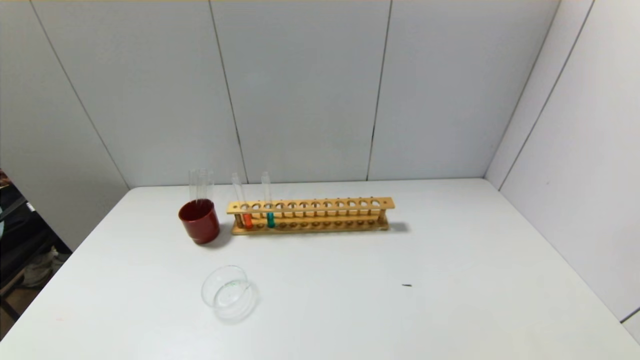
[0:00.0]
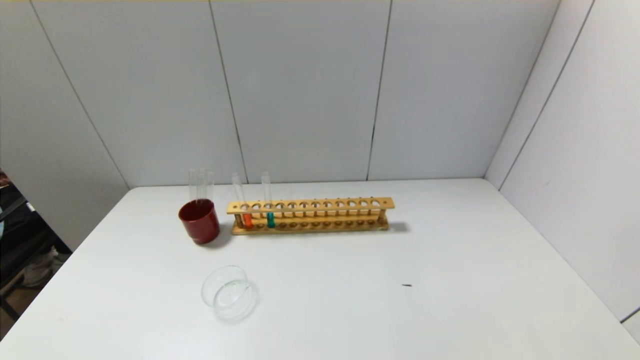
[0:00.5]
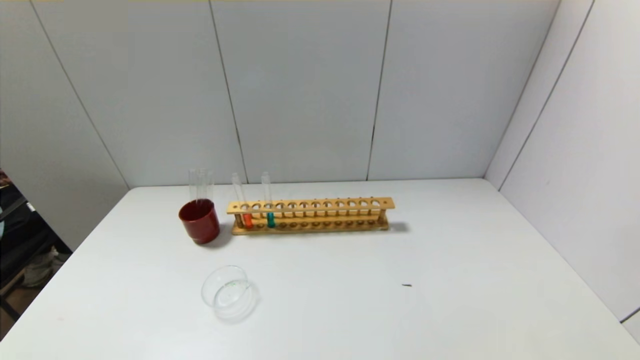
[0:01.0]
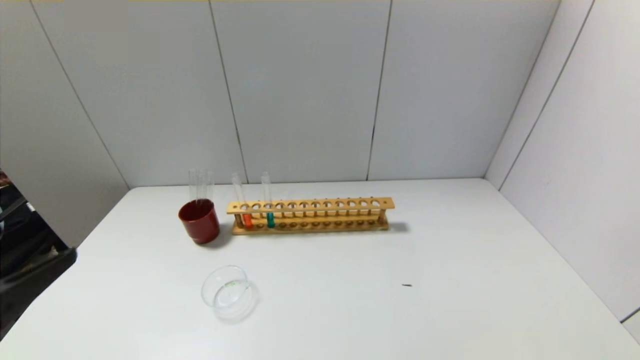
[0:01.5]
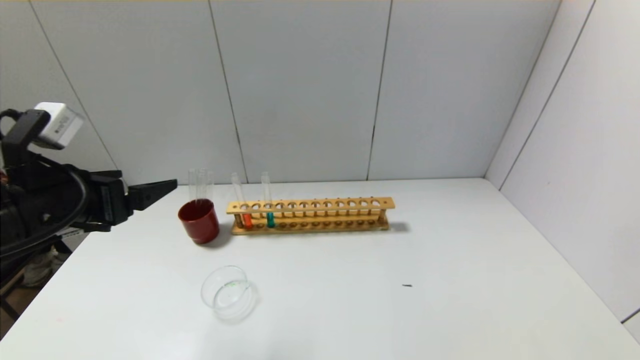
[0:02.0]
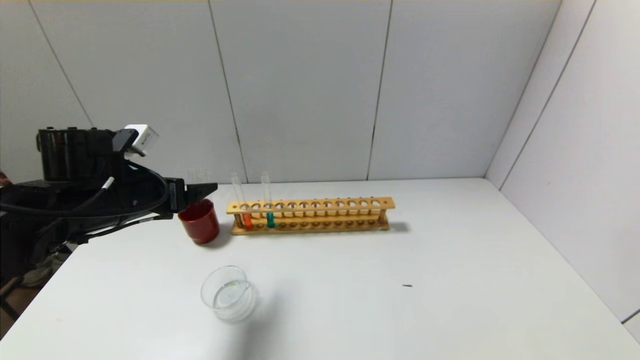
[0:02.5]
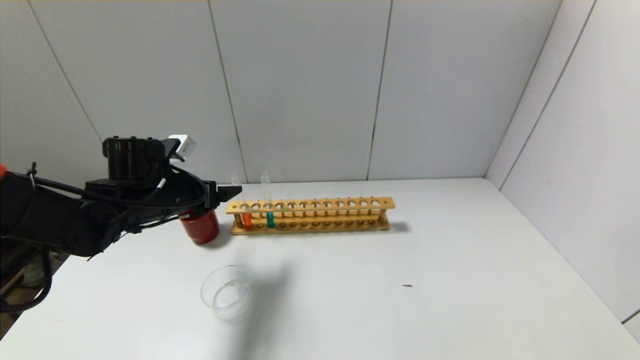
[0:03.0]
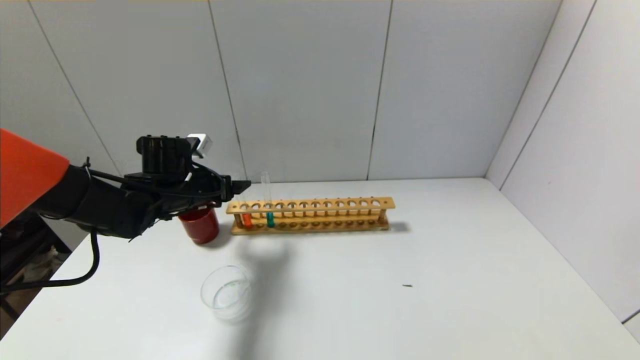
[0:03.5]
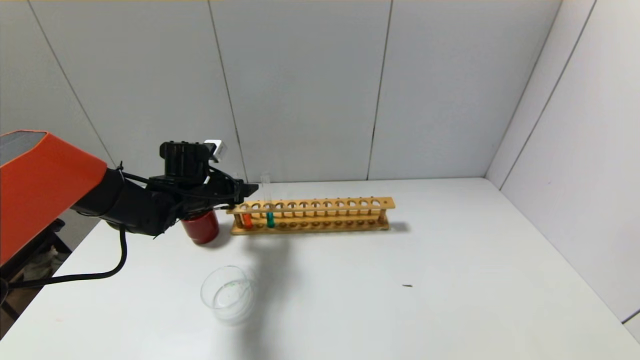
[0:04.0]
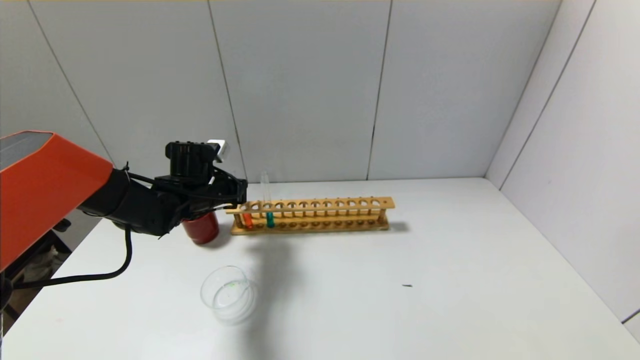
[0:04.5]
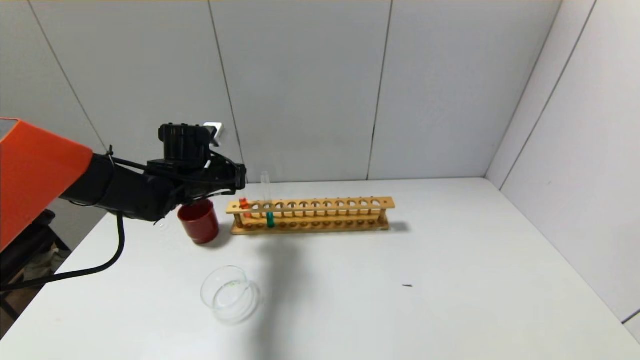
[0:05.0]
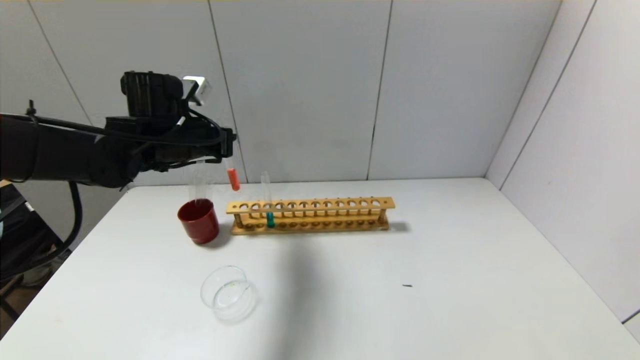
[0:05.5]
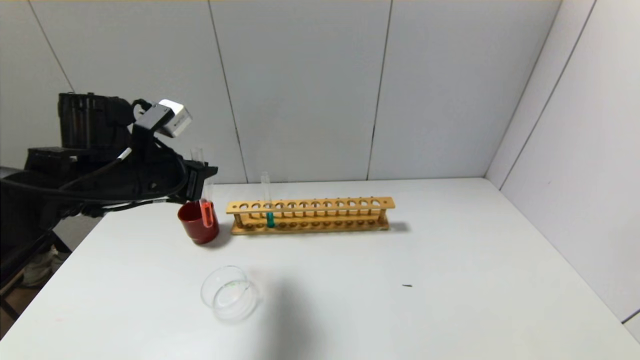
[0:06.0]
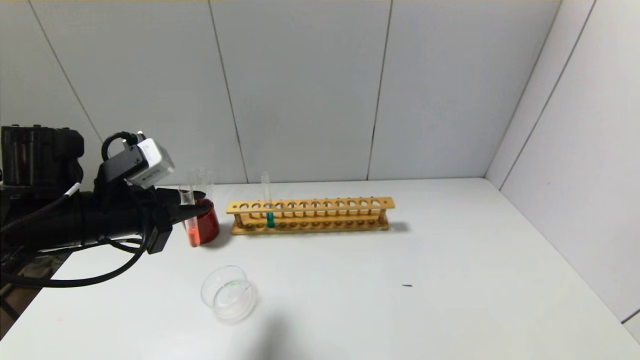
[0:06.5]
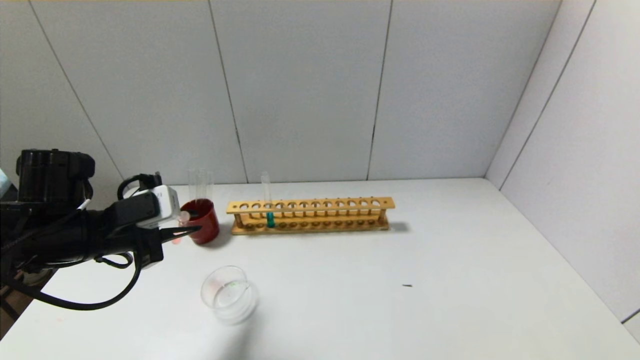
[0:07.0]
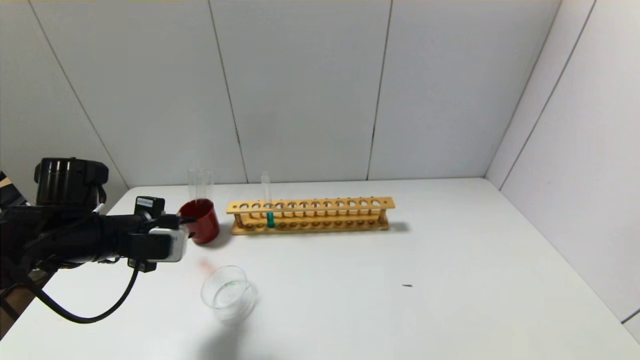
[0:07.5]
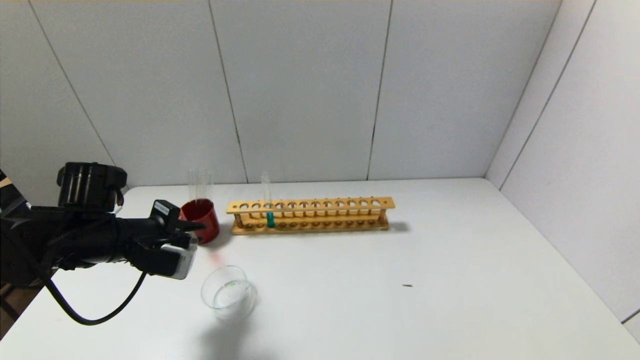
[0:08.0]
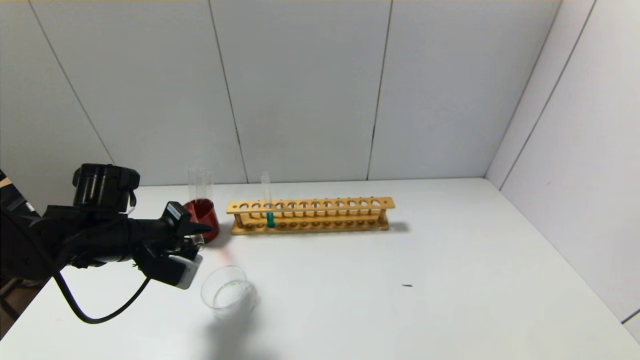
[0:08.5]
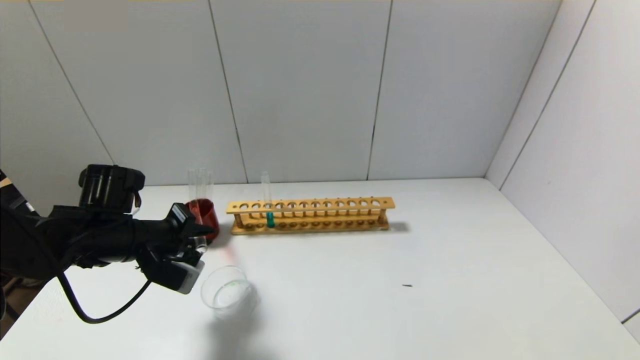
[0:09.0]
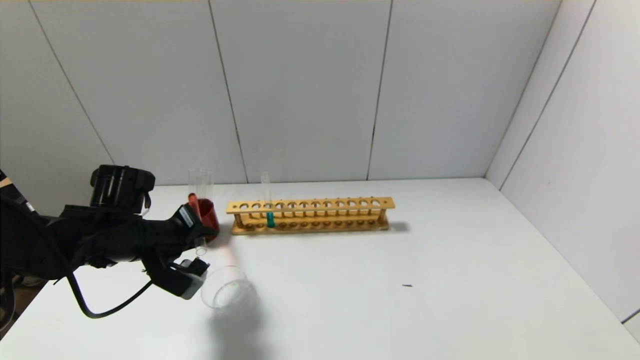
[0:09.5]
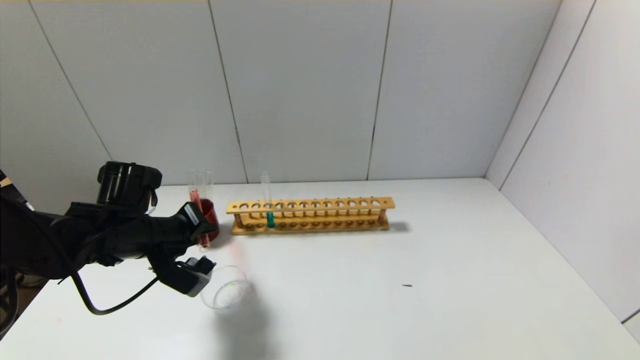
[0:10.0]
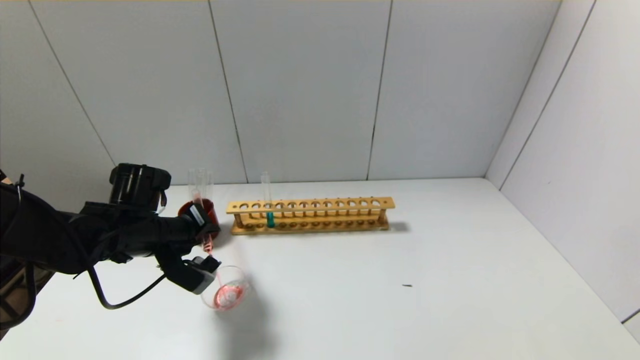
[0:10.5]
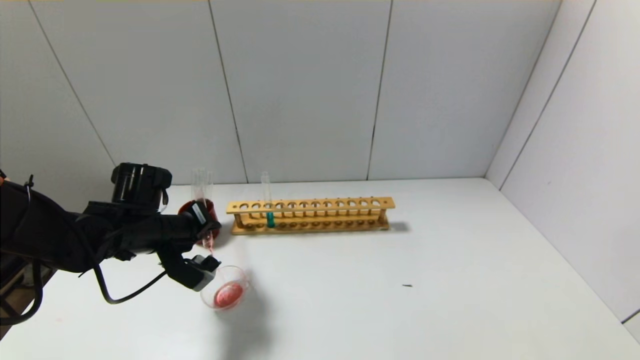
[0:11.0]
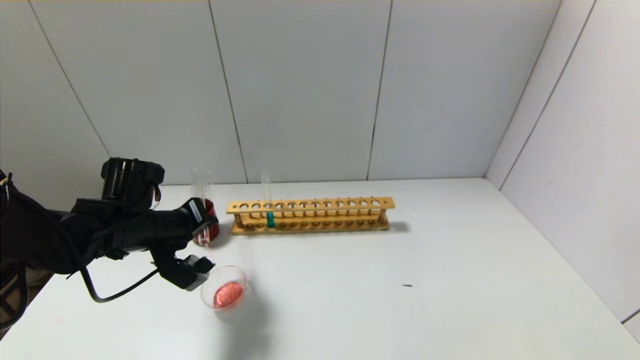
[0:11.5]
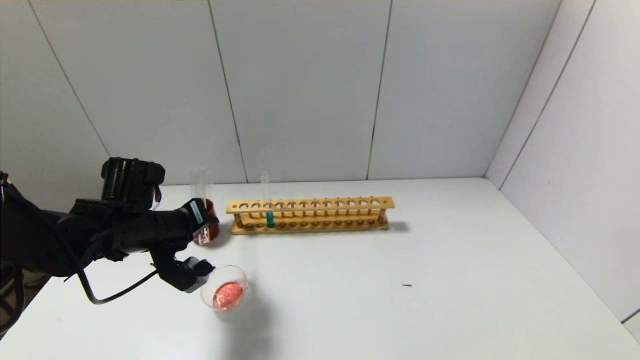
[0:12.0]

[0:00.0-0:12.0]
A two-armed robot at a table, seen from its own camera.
Step, 0:00.0 to 0:04.5: Grasp the red reagent with the left gripper.
0:00.0 to 0:02.0: The left gripper shifts approximately 30 cm forward and upward.
0:02.0 to 0:04.0: The left gripper goes approximately 25 cm forward and downward.
0:04.0 to 0:06.0: The left gripper moves backward and upward, roughly 15 cm, and closes up.
0:06.0 to 0:08.0: The left gripper heads downward, covering roughly 10 cm.
0:10.0 to 0:12.0: The grippers move only a little.

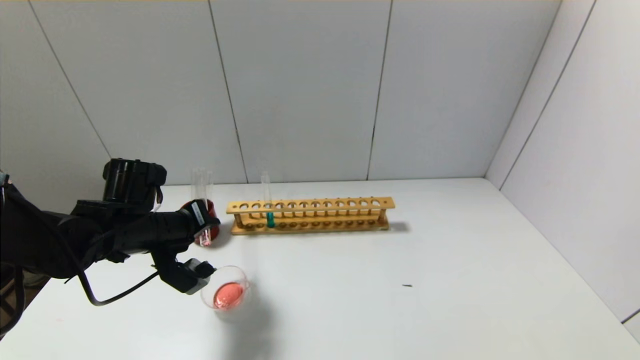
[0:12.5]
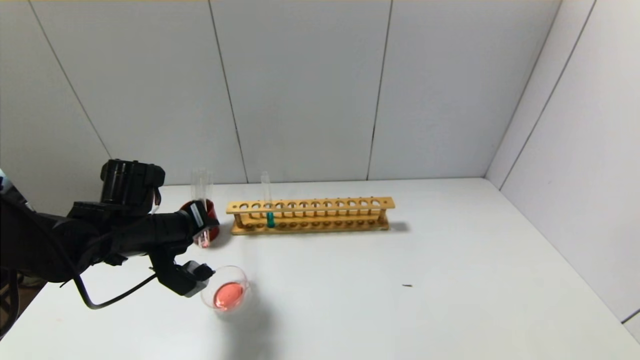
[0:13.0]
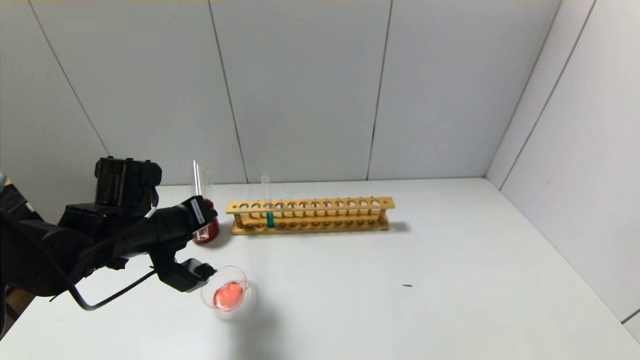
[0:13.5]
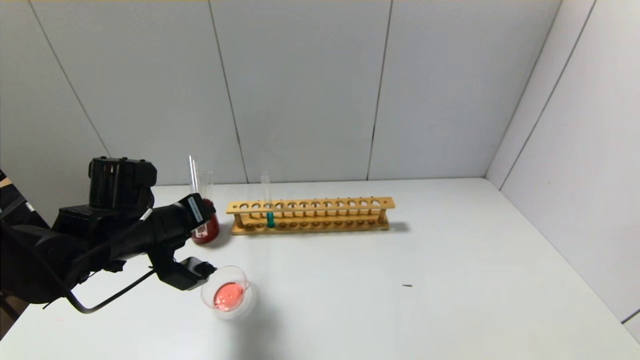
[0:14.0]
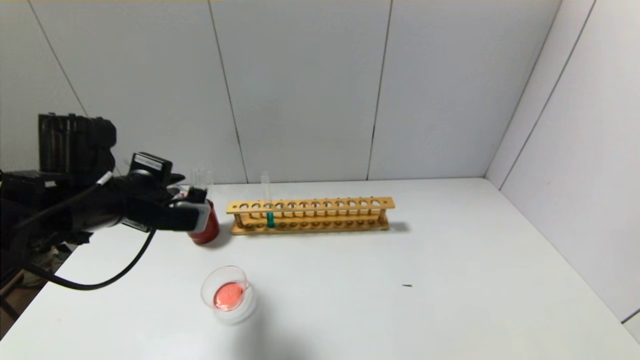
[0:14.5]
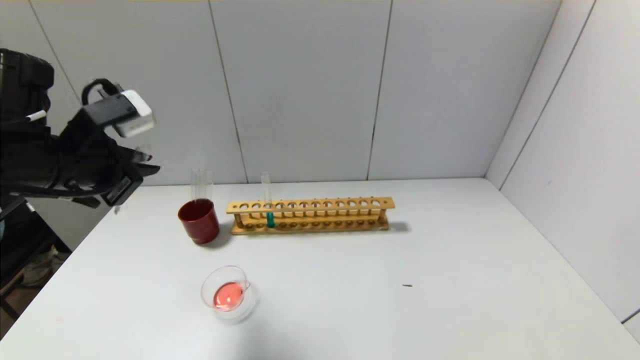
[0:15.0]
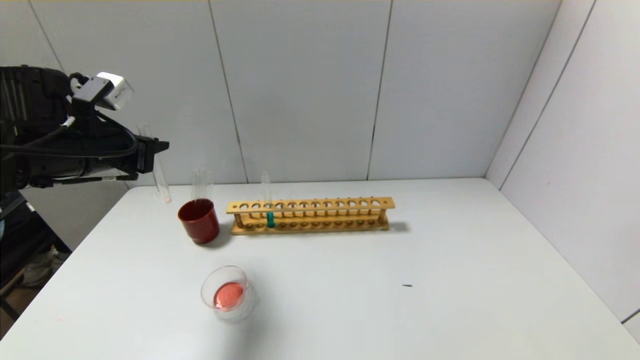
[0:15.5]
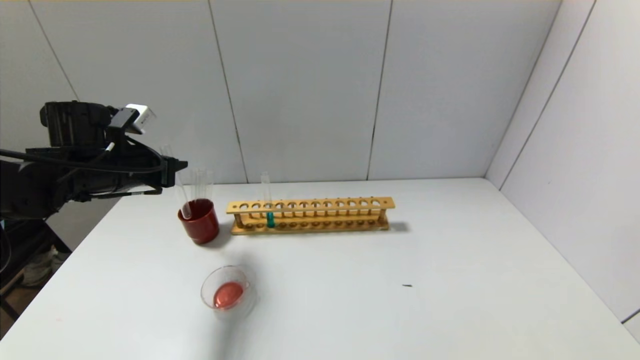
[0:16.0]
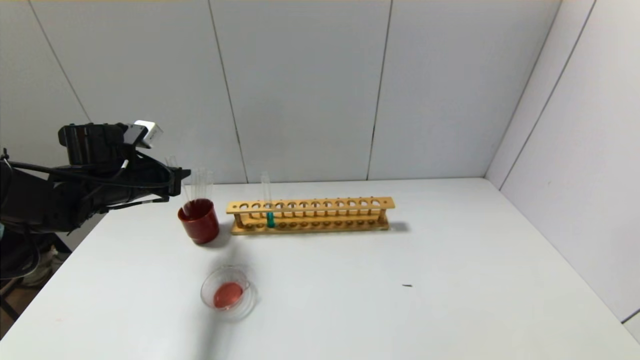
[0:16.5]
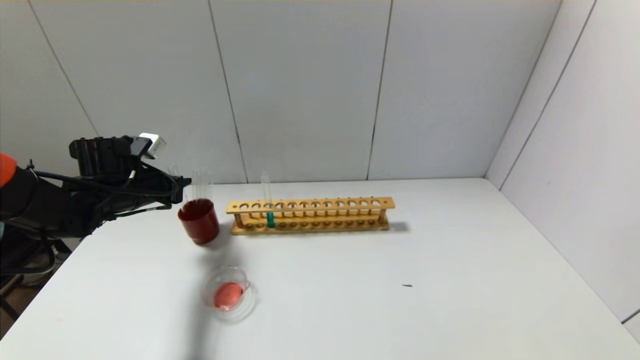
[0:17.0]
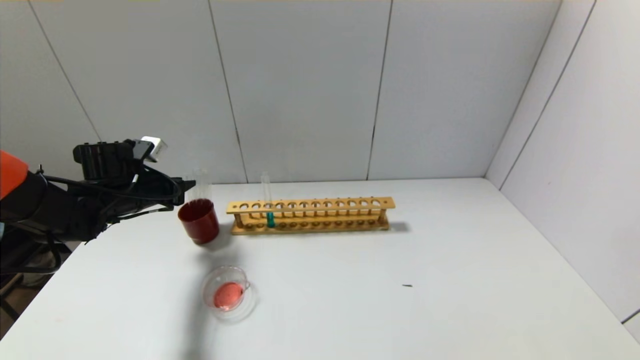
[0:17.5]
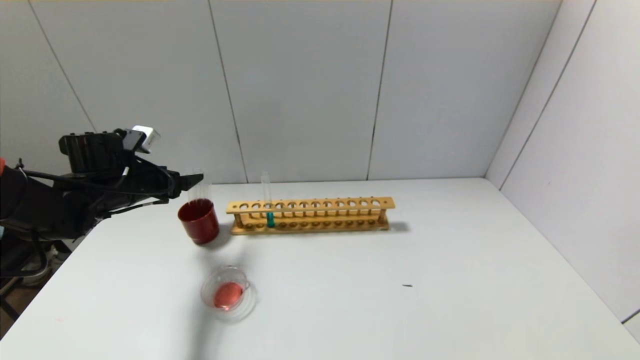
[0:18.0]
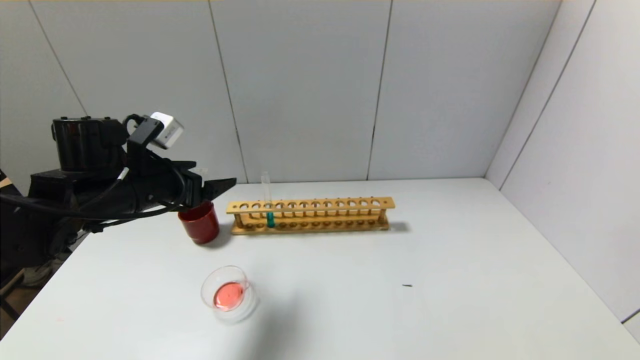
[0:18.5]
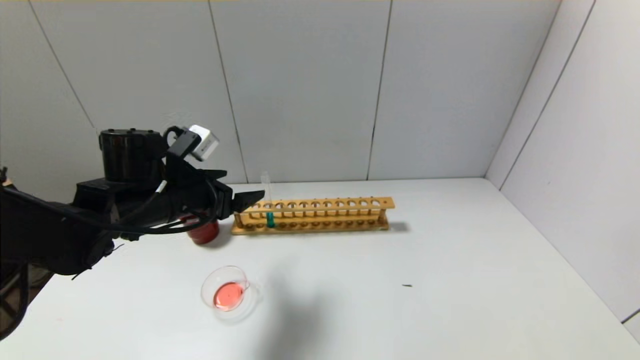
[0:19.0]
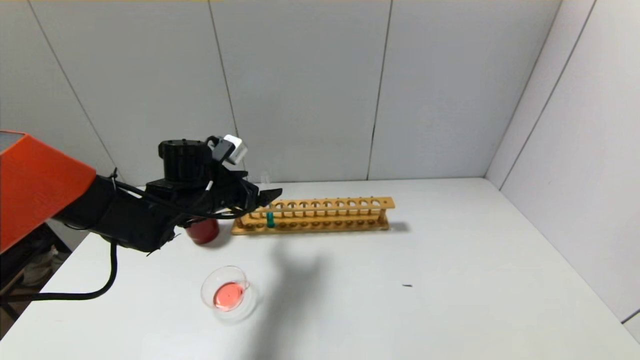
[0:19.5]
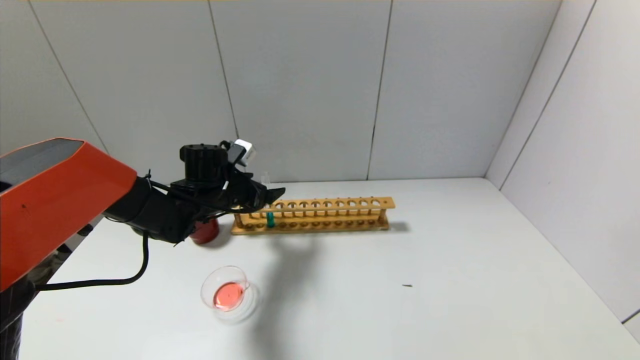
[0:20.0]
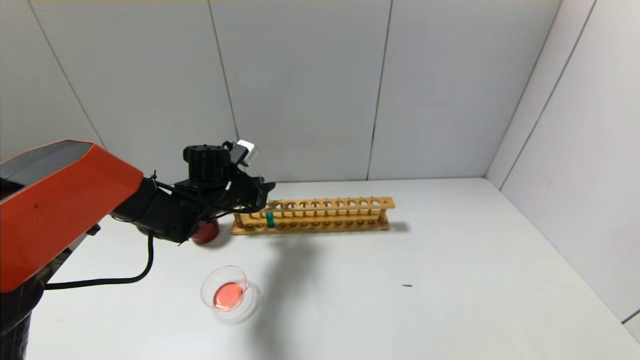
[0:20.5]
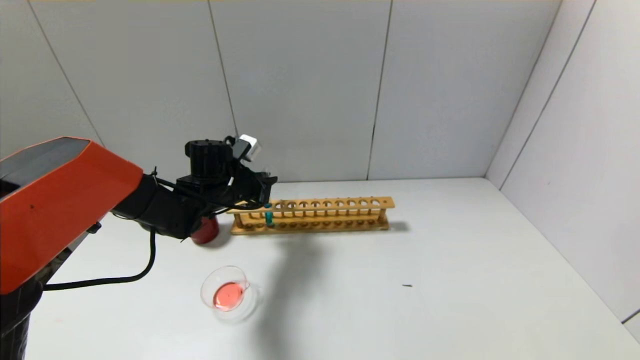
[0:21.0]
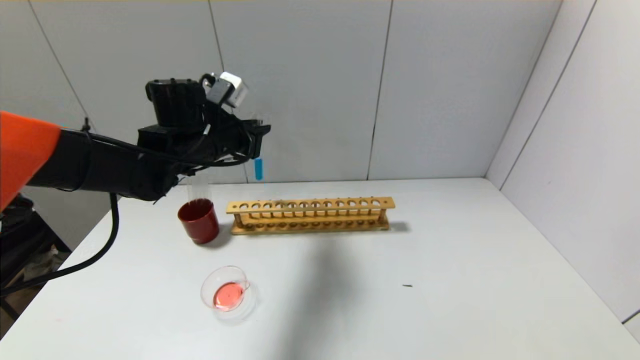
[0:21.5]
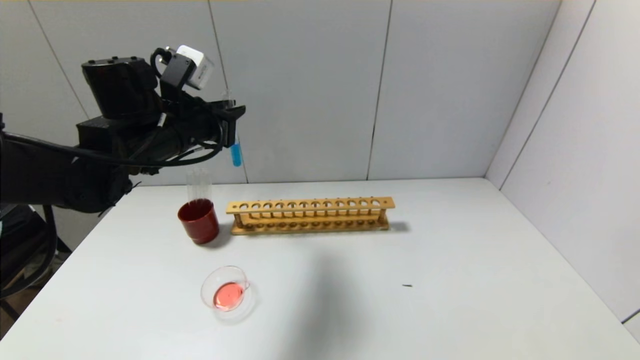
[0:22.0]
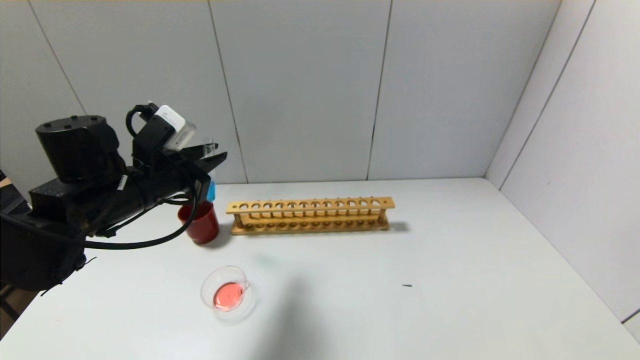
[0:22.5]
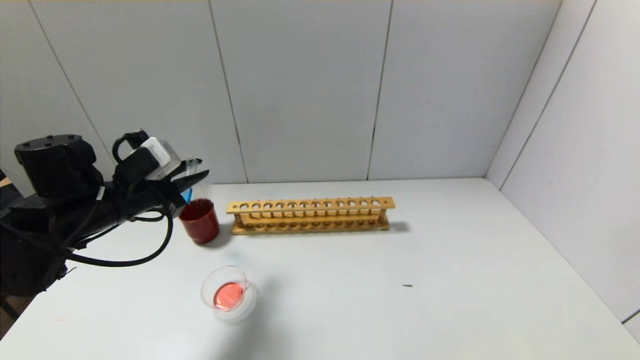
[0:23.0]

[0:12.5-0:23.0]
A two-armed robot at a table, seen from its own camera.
Step, 0:14.5 to 0:17.5: Place the test tube into the brown cup with the left gripper.
Step, 0:18.0 to 0:20.5: Grasp the blue reagent with the left gripper.
0:12.5 to 0:14.5: The left gripper is displaced upward by some 10 cm.
0:14.5 to 0:16.5: The left gripper heads forward, to the left and downward, covering approximately 15 cm.
0:16.5 to 0:19.0: The left gripper heads to the right and backward, covering approximately 10 cm, and opens up.
0:19.0 to 0:21.0: The left gripper goes approximately 10 cm forward, and closes its fingers.
0:21.0 to 0:23.0: The left gripper moves backward and to the left, roughly 15 cm.
